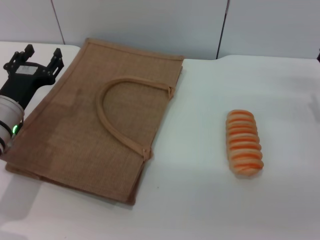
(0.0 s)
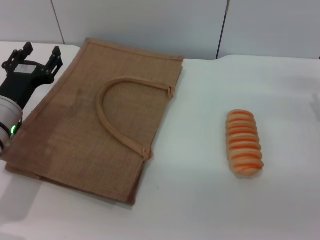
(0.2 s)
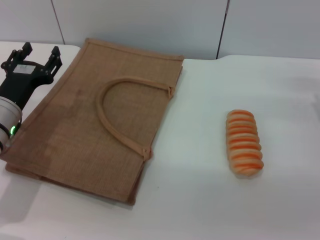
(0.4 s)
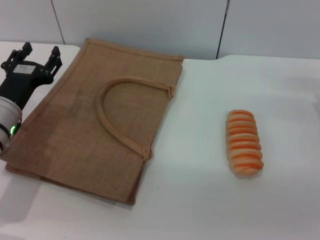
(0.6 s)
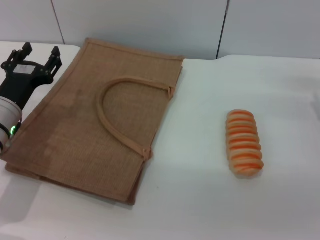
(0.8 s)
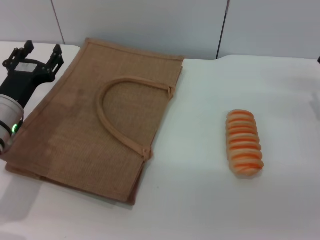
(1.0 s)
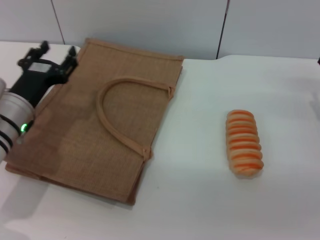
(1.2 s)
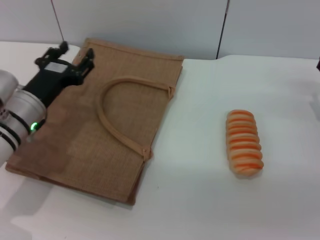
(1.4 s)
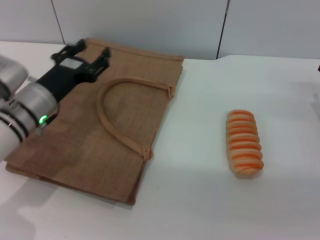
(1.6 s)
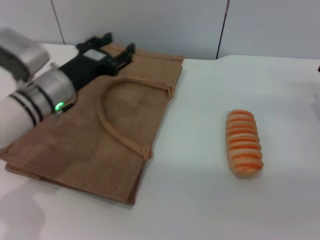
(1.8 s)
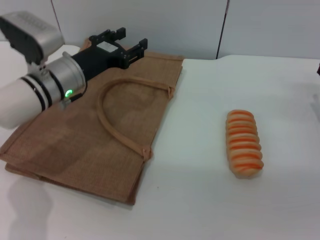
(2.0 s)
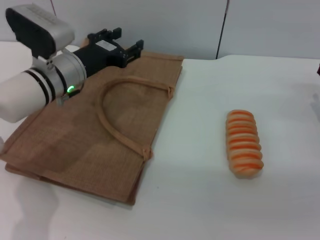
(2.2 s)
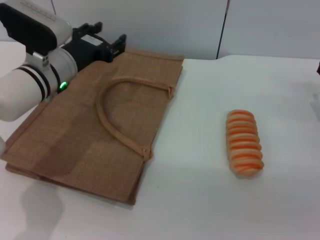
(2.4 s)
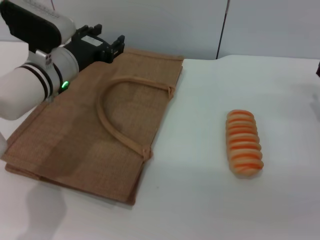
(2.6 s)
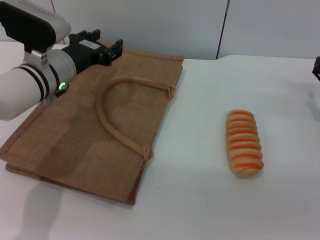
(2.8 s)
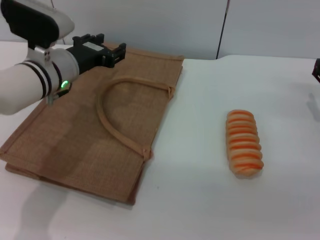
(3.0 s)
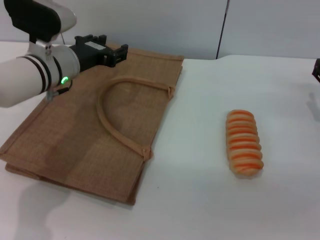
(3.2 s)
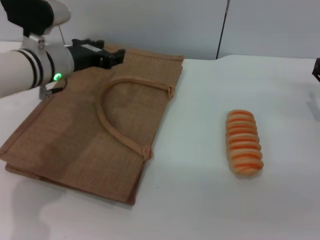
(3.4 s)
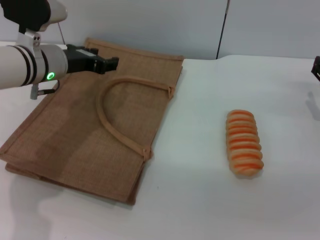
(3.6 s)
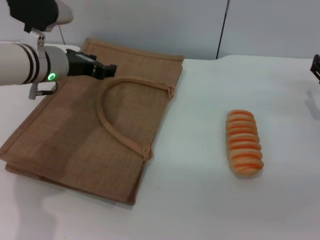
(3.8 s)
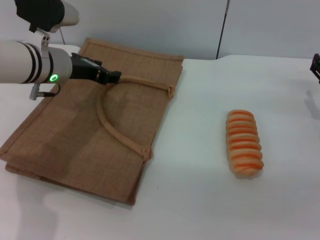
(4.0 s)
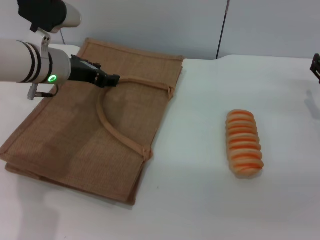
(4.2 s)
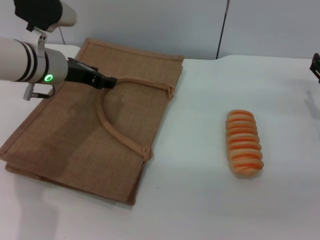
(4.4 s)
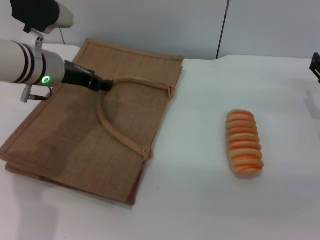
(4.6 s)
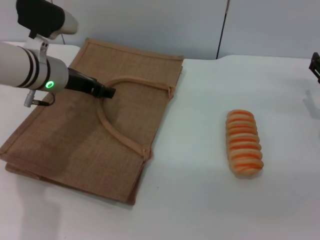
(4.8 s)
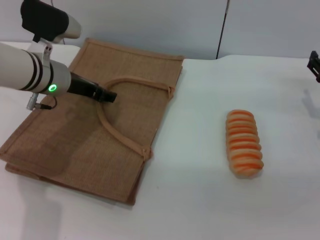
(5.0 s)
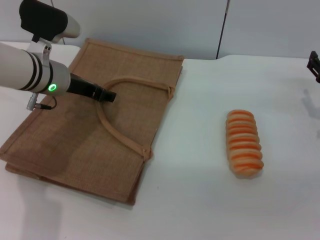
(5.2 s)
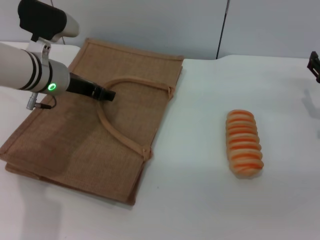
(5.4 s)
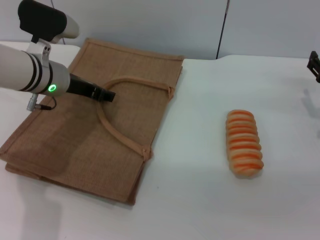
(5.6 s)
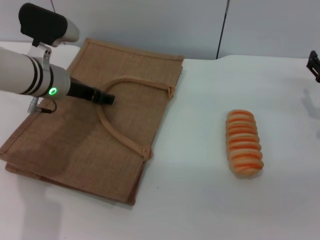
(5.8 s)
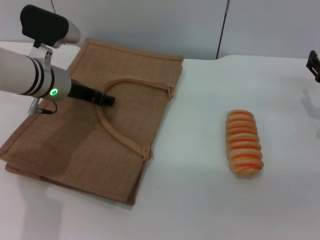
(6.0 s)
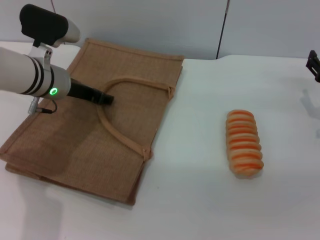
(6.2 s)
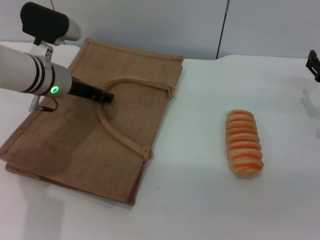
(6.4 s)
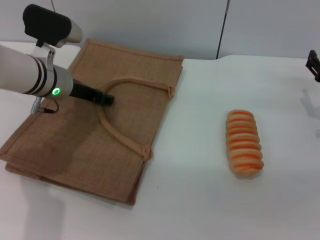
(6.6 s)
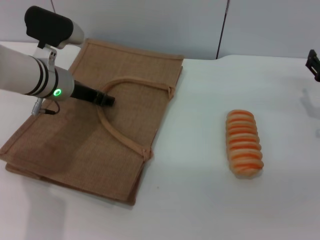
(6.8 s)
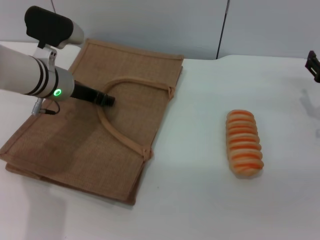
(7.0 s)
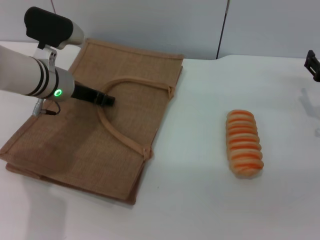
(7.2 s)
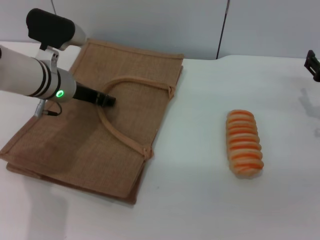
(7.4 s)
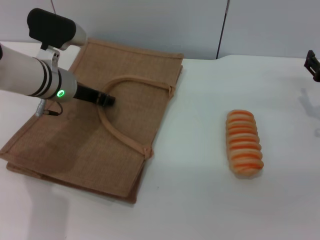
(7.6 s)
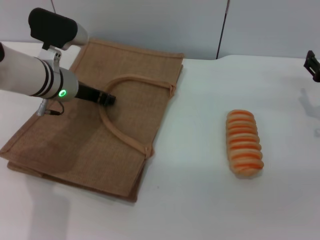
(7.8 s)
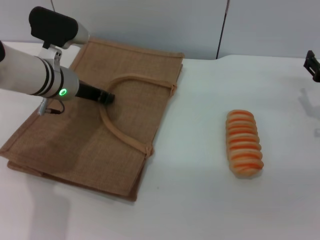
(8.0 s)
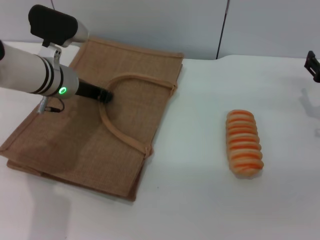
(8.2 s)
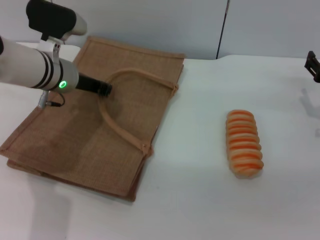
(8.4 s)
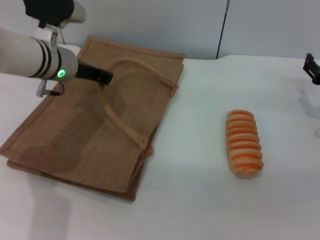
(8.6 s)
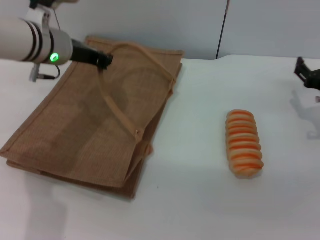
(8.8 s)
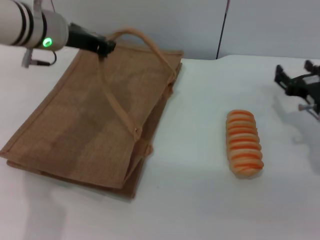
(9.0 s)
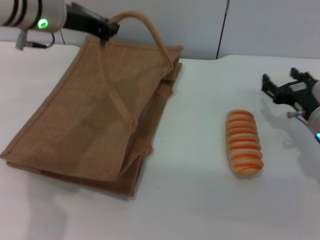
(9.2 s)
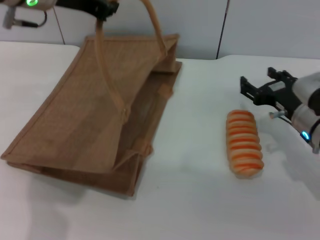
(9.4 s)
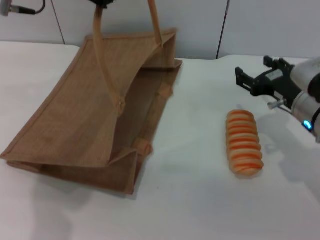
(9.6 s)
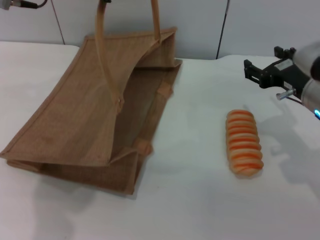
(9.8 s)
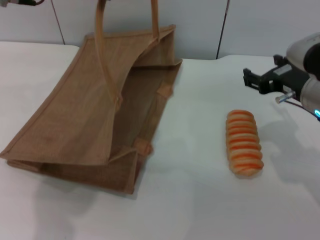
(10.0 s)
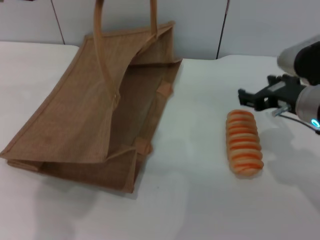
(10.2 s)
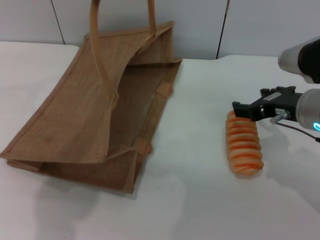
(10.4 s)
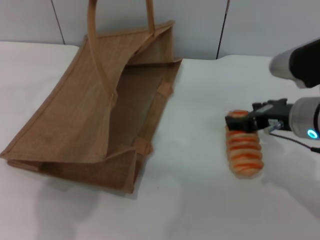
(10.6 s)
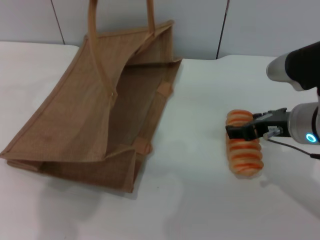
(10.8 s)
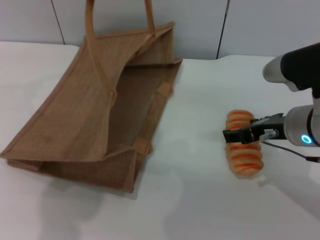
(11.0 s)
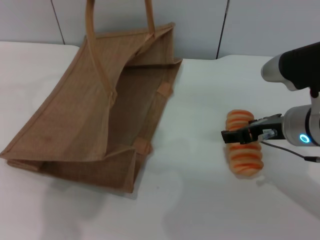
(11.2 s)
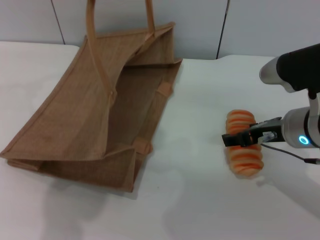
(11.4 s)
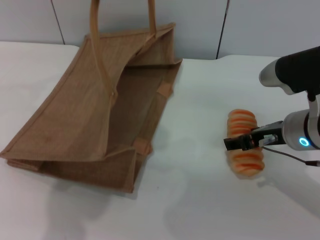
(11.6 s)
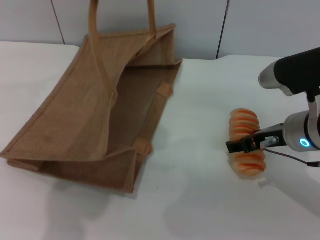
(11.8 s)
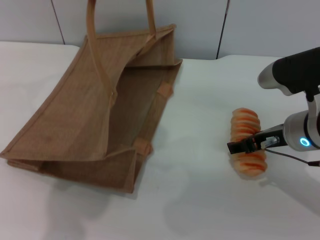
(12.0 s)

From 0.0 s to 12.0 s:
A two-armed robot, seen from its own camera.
Task of the whole recording: pick up the bread from the table and place it in the brown handbag.
Step, from 0.0 s to 8.4 s: Lift the woven bag with the left gripper to open it.
From 0.0 s to 1.6 s: There are only small adjustments of the grippers.
From 1.6 s to 3.0 s: The left gripper moves upward, roughly 5 cm.
From 4.4 s to 6.0 s: The grippers stay close to where they were, moving slightly.
From 6.0 s to 7.6 s: Neither gripper changes place.
From 7.6 s to 9.0 s: The left gripper travels upward by about 10 cm, and closes up.
From 9.0 s to 10.4 s: The left gripper travels upward by roughly 10 cm, while the right gripper heads upward and to the left, covering some 10 cm.
From 10.4 s to 12.0 s: The grippers stay close to where they were, moving slightly.

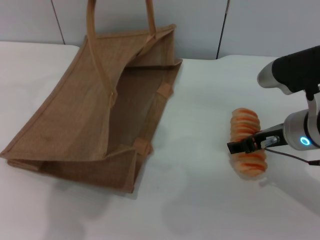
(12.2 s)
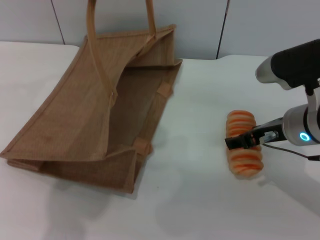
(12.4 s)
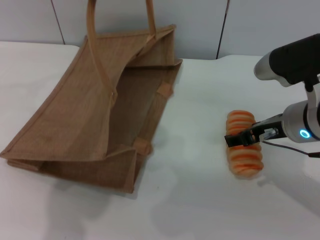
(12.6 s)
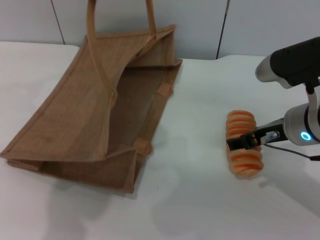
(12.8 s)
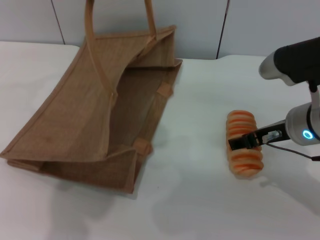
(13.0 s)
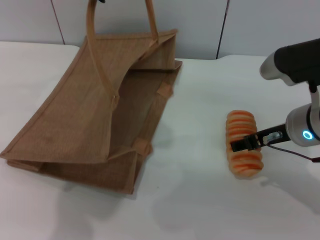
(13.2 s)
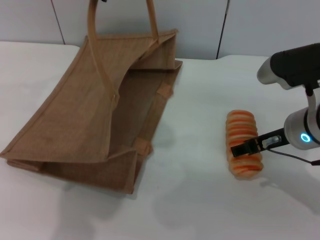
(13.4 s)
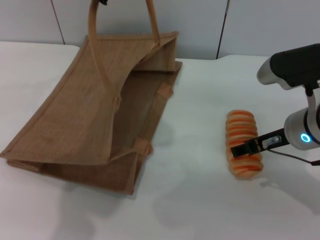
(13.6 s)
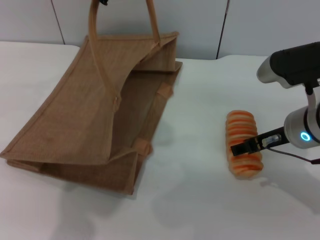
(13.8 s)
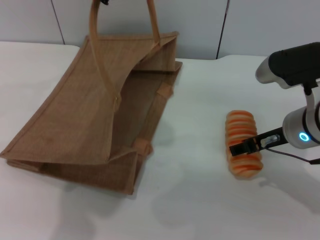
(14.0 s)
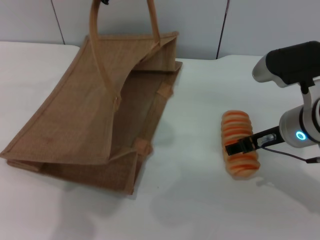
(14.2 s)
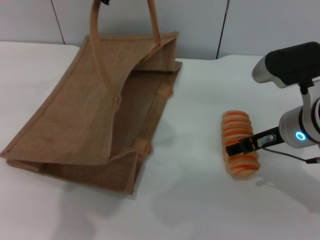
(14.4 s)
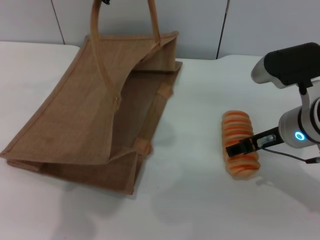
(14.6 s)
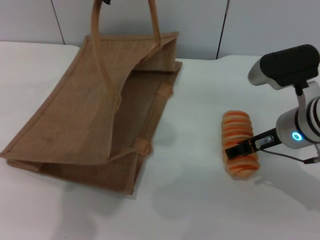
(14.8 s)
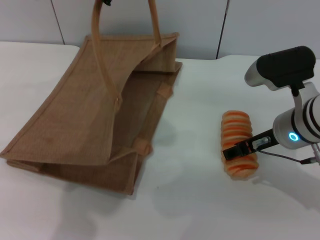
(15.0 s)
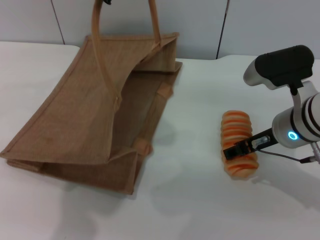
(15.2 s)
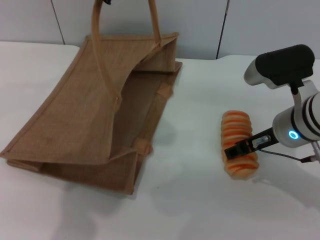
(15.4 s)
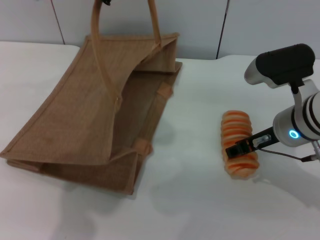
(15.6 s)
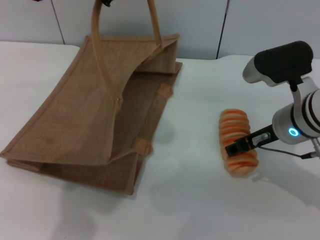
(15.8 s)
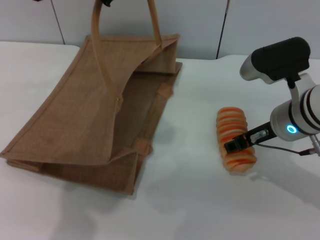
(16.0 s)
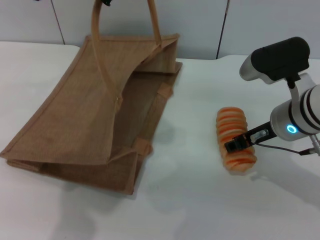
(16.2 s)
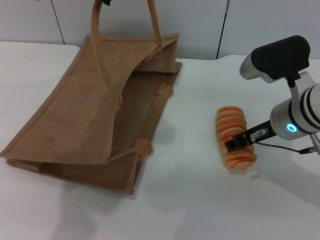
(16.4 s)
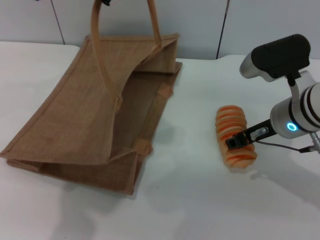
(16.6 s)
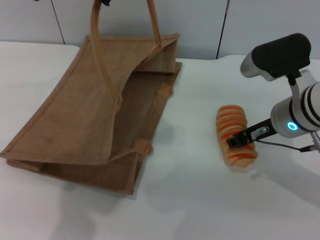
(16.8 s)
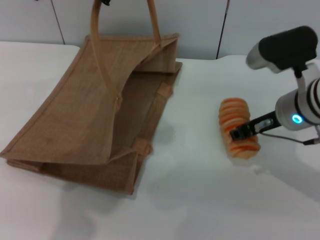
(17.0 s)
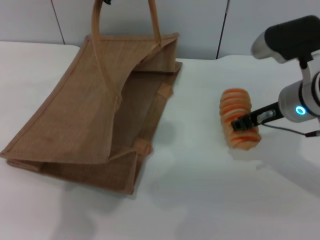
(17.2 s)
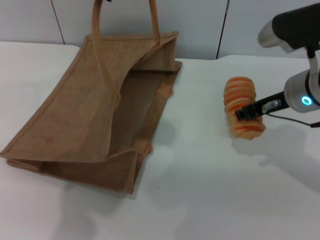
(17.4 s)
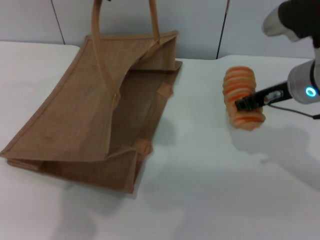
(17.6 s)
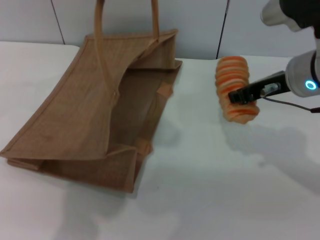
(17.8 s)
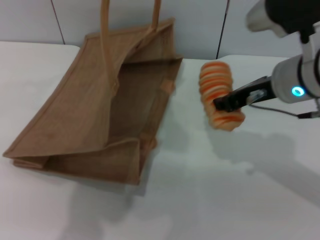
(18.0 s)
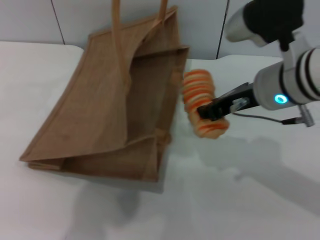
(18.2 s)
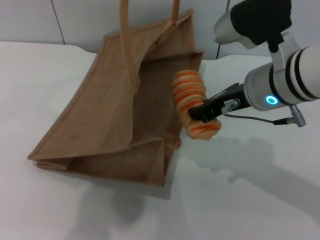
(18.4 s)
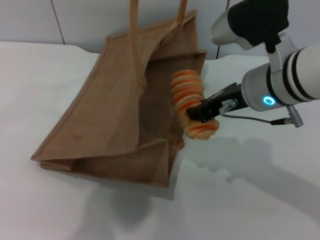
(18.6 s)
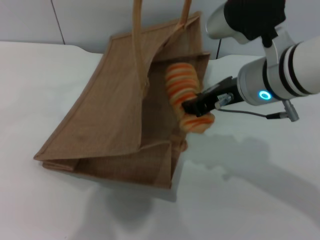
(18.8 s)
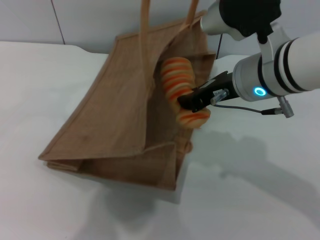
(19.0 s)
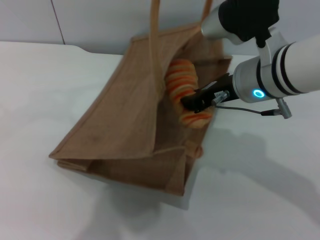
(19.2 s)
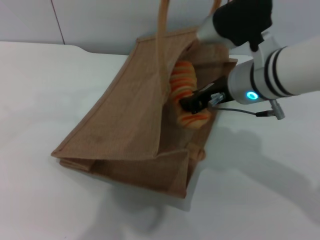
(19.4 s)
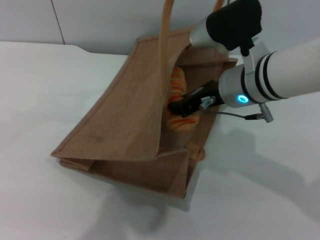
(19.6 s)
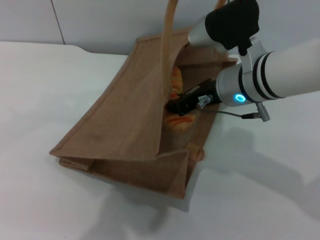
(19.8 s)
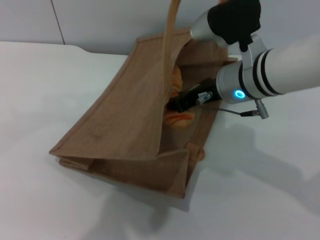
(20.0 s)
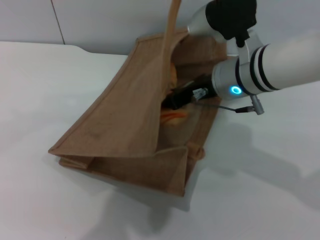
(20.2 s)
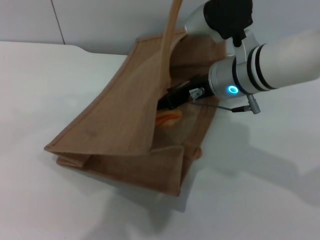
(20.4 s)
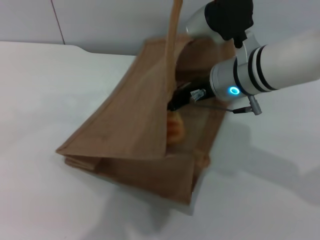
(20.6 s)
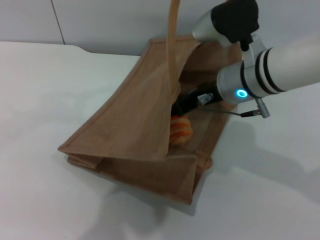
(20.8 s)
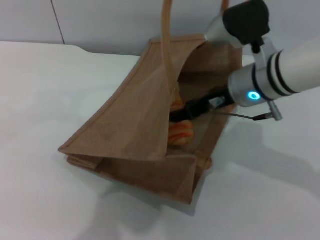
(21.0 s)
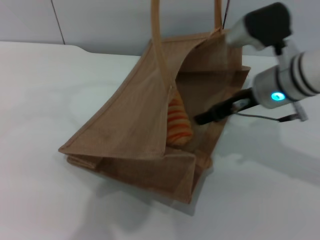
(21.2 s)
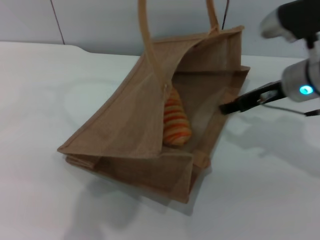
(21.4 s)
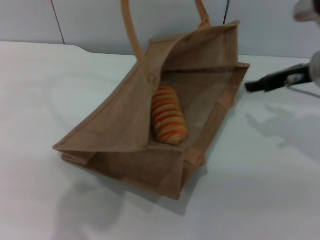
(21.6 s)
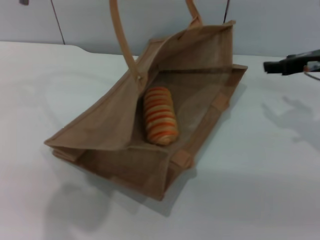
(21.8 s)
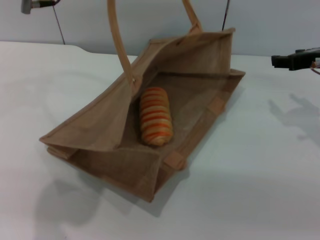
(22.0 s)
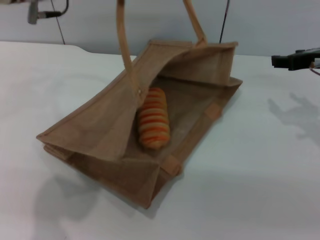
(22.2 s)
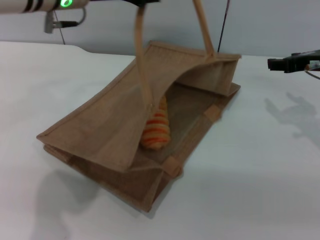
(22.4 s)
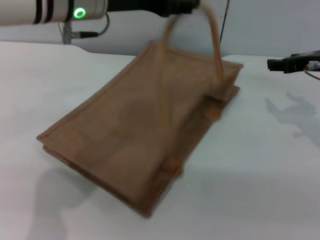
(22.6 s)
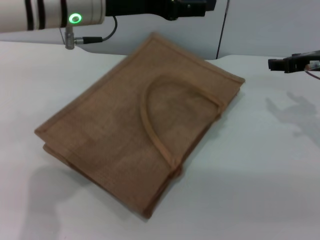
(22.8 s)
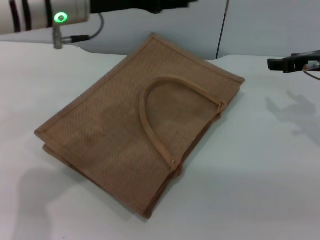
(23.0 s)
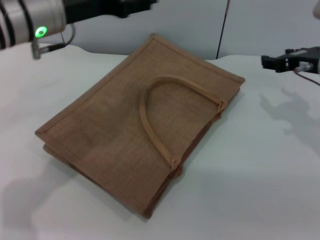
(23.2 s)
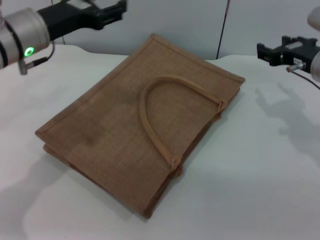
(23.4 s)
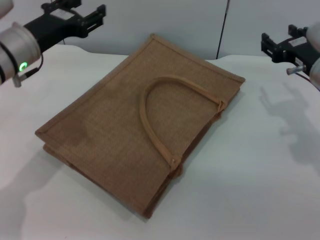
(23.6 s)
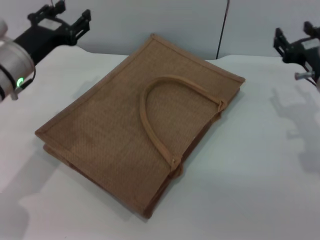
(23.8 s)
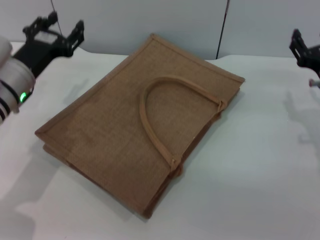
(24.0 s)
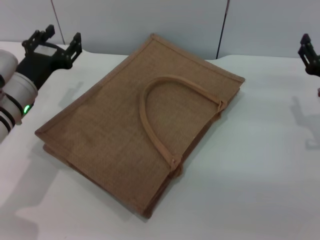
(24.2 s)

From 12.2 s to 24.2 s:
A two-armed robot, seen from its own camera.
Task of the whole recording: pick up the bread from the table and place it in the brown handbag.
Step, from 12.2 s to 17.4 s: Pick up the bread with the right gripper.
Step, from 17.6 s to 21.2 s: Place the bread into the woven bag with the right gripper.
From 12.2 s to 15.2 s: The grippers move only a little.
From 15.2 s to 16.6 s: The right gripper closes.
From 16.6 s to 18.2 s: The right gripper shifts roughly 5 cm upward.
From 18.2 s to 19.8 s: The right gripper moves about 5 cm, while the left gripper shifts approximately 5 cm to the right.
From 19.8 s to 21.2 s: The right gripper moves to the right, some 5 cm, and opens up.
From 21.2 s to 22.6 s: The left gripper moves downward, about 10 cm, and opens its fingers, while the right gripper is displaced to the right by approximately 10 cm.
From 22.6 s to 24.2 s: The right gripper travels downward and backward by approximately 10 cm. Meanwhile the left gripper heads downward and to the left, covering about 20 cm.
